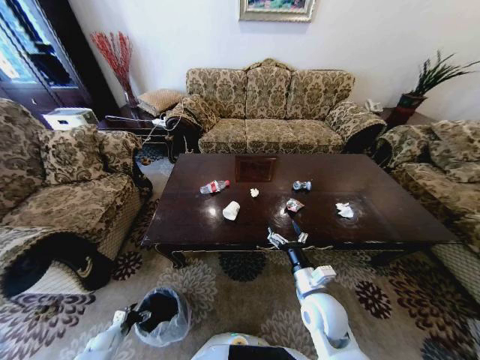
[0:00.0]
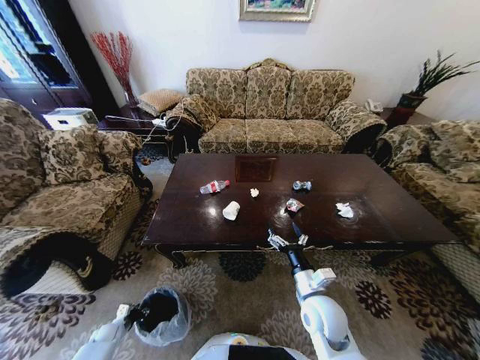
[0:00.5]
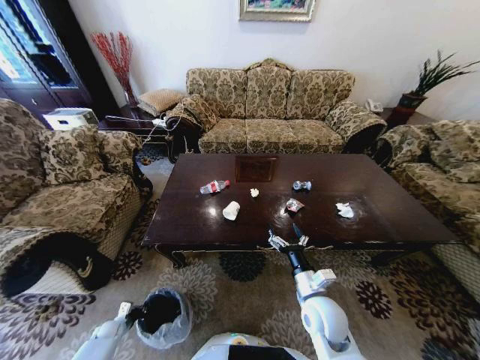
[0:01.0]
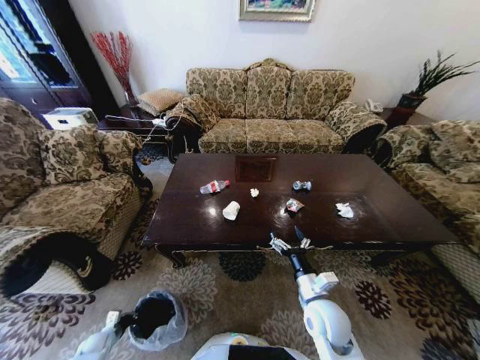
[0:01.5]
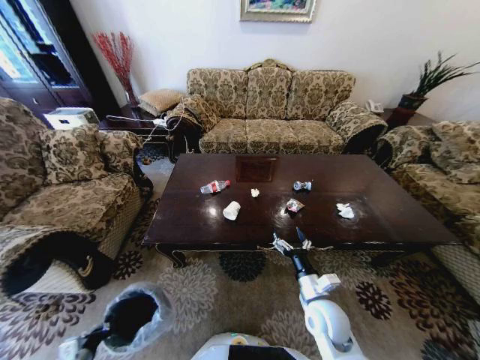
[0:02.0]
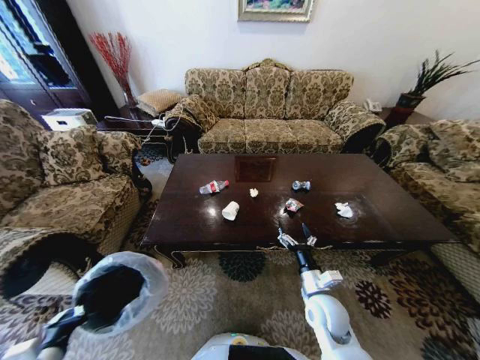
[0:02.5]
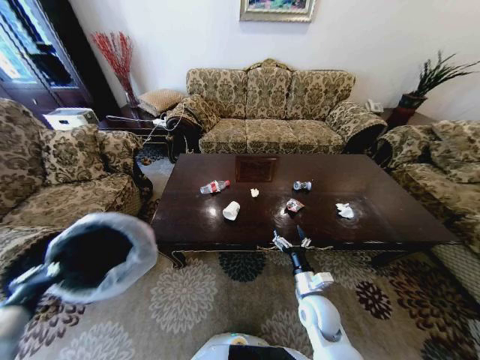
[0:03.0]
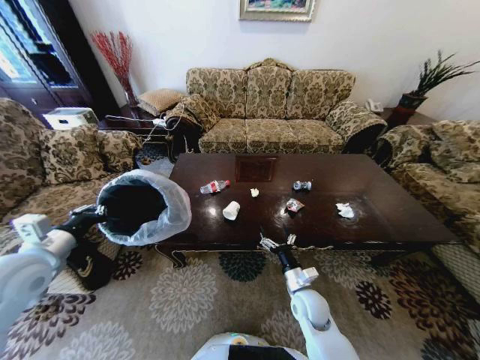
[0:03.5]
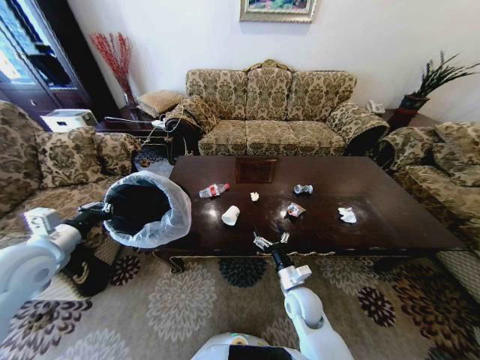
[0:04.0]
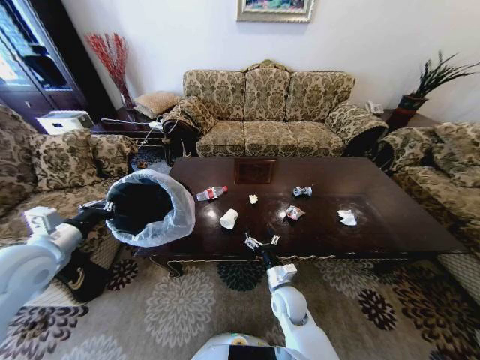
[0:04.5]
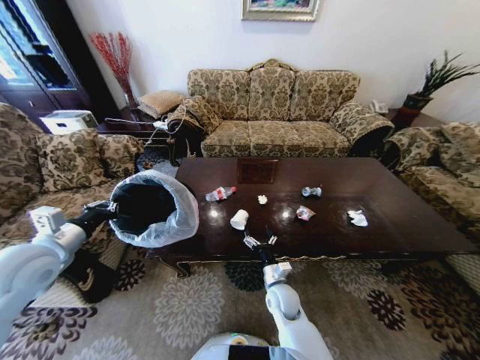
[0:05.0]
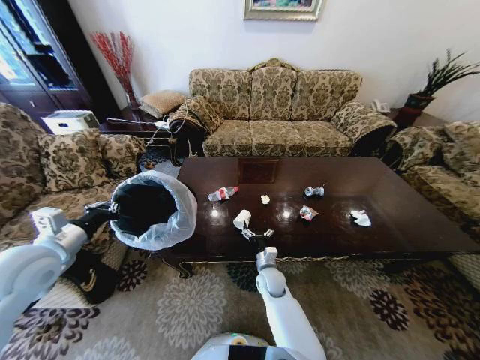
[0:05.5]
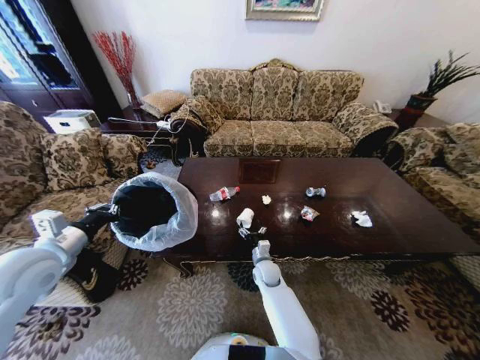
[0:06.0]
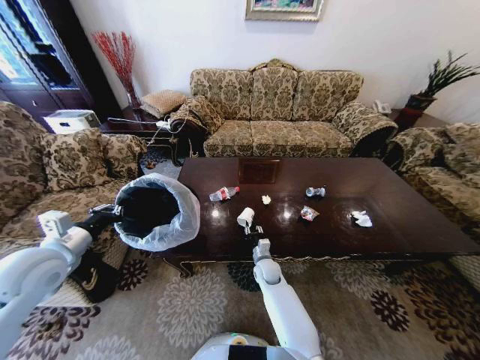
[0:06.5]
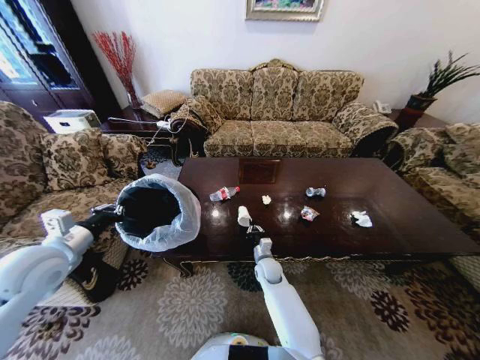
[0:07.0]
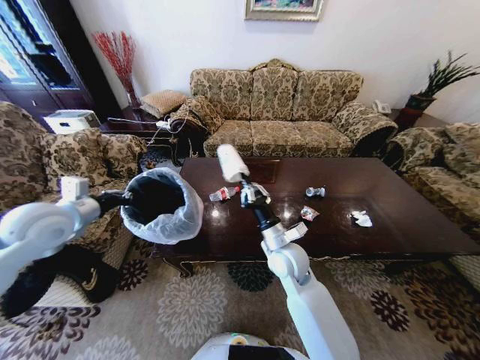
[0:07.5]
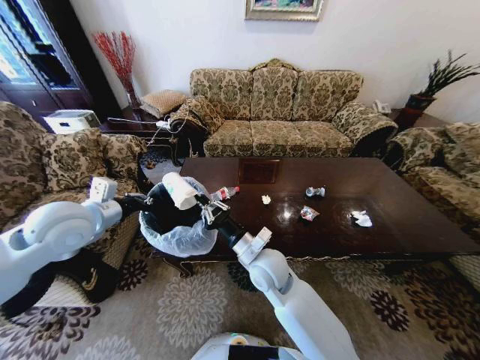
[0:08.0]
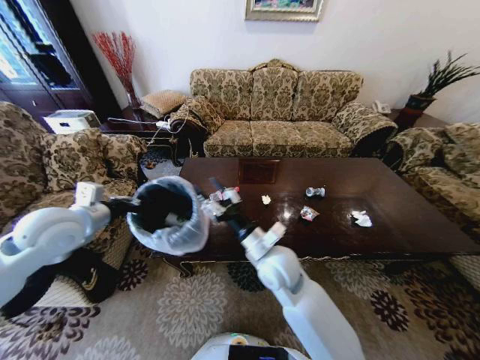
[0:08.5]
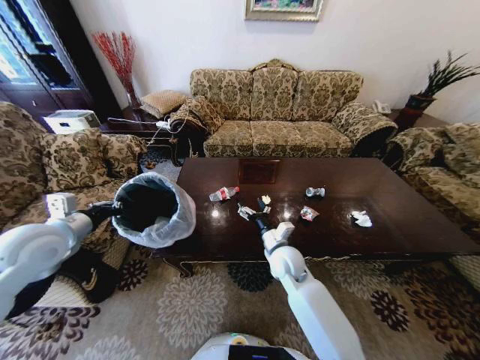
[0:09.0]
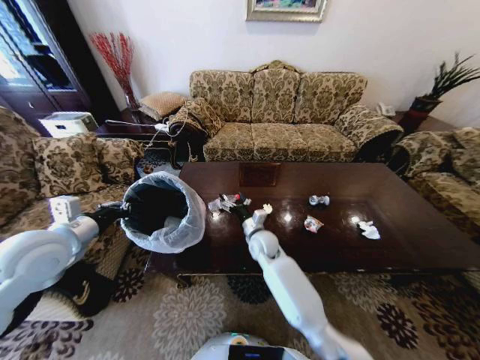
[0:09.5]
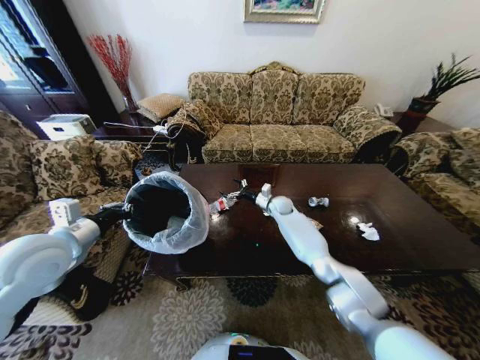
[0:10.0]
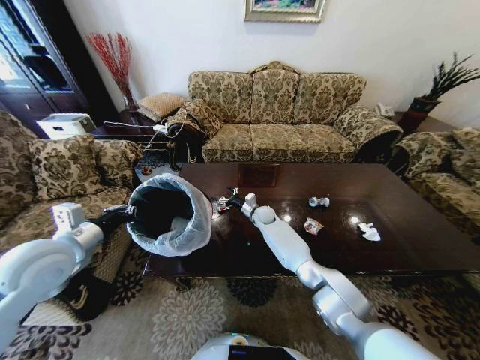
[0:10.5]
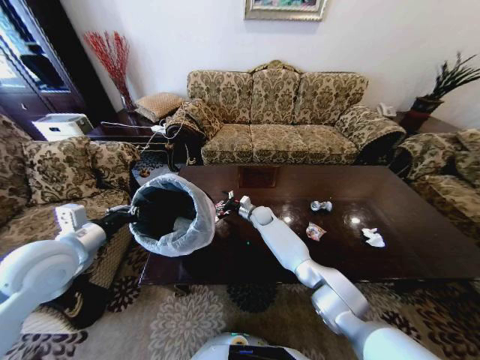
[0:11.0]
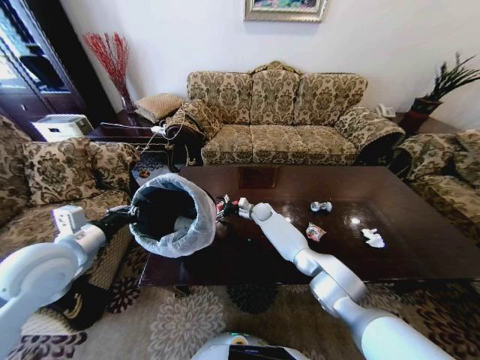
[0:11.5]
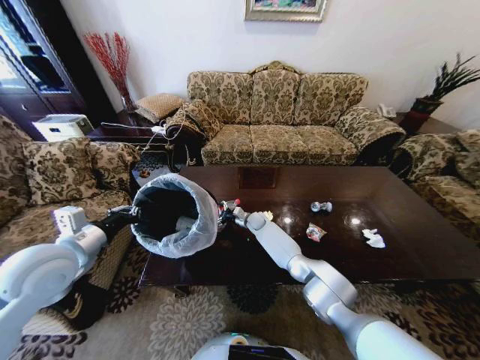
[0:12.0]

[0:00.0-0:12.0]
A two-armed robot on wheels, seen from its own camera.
Task of the whole recording: Move to the front of the table and place the trash on the table into the trash bin.
0:00.0 to 0:02.0: The left gripper moves upward and backward, about 15 cm, and closes up.
0:02.0 to 0:04.0: The right gripper ends up about 5 cm from where it was; the left gripper travels upward and forward by some 40 cm.
0:04.0 to 0:06.0: The right gripper travels forward, to the left and downward by some 15 cm.
0:06.0 to 0:08.0: The right gripper moves upward, about 20 cm, and closes its fingers; the left gripper shifts about 10 cm to the right, forward and upward.
0:08.0 to 0:10.0: The right gripper heads forward, covering about 30 cm, and opens up. Meanwhile the left gripper shifts approximately 5 cm backward.
0:10.0 to 0:12.0: The right gripper travels downward and to the left by some 15 cm.

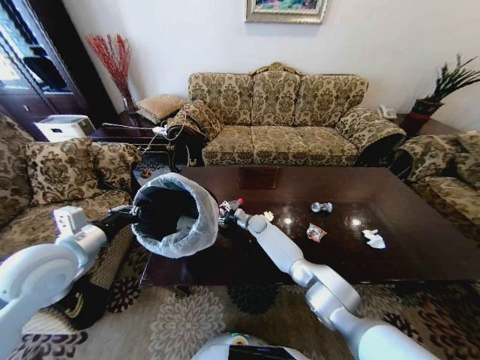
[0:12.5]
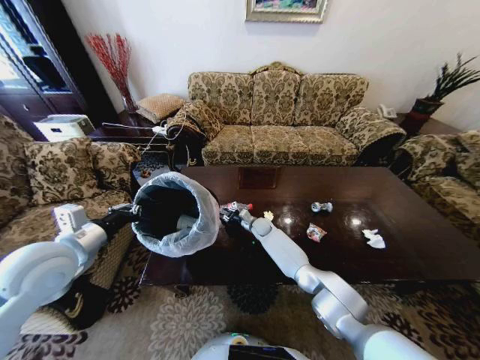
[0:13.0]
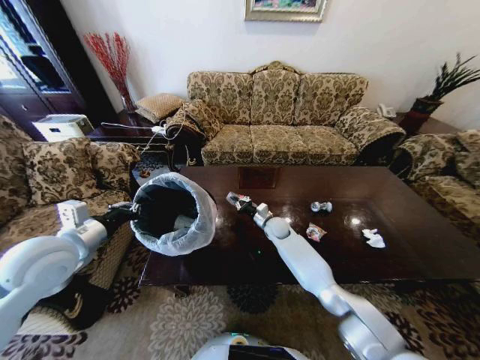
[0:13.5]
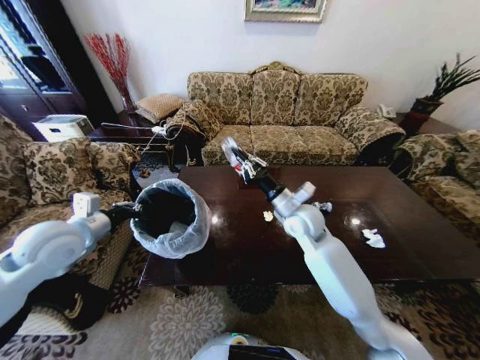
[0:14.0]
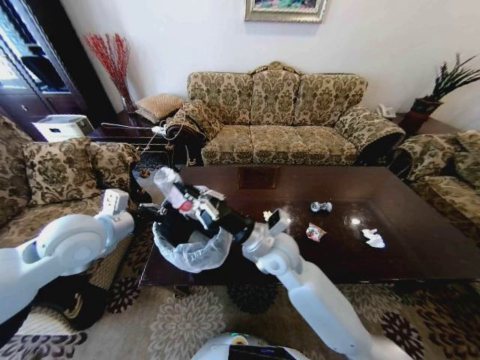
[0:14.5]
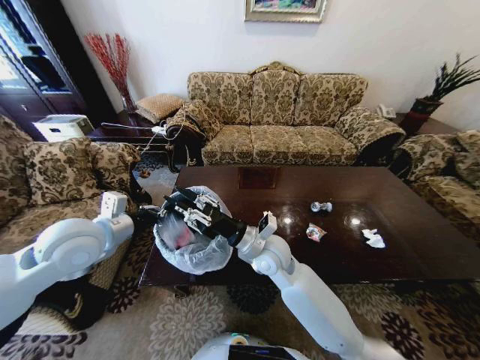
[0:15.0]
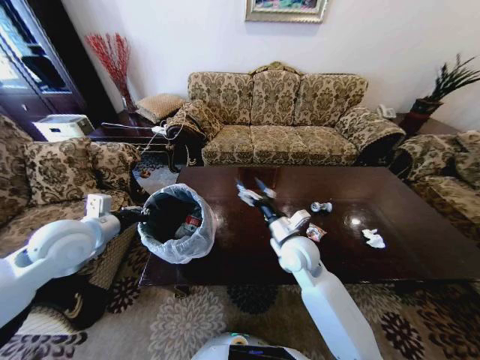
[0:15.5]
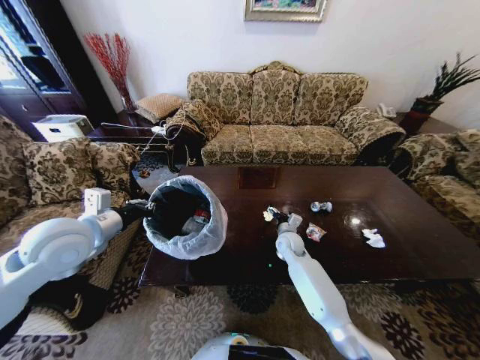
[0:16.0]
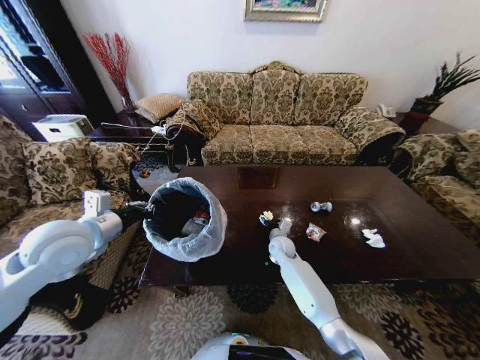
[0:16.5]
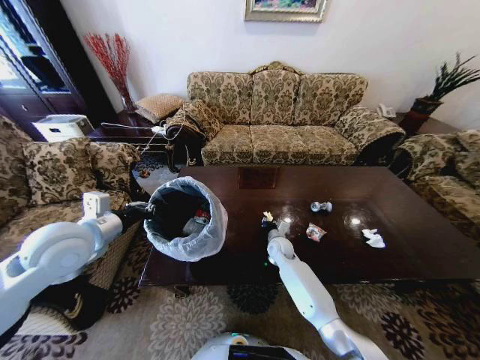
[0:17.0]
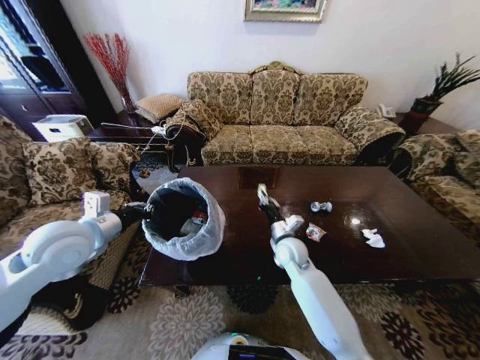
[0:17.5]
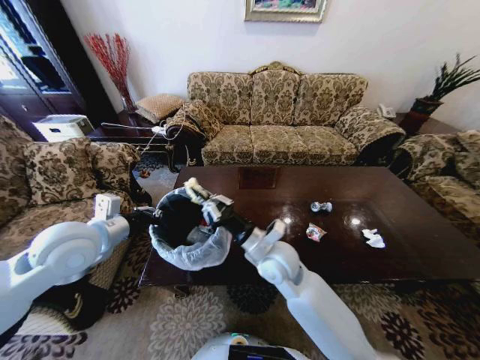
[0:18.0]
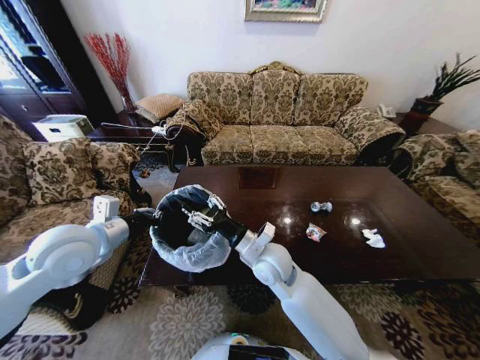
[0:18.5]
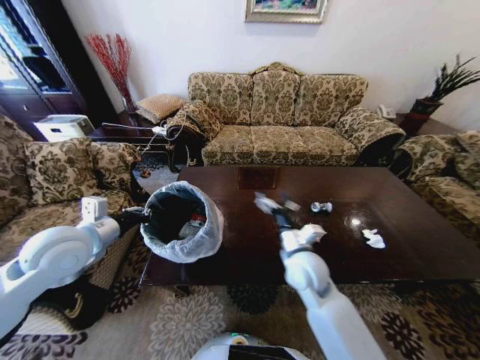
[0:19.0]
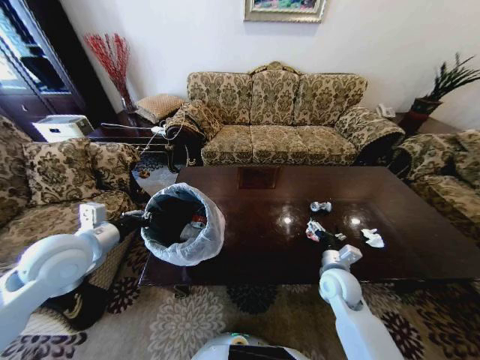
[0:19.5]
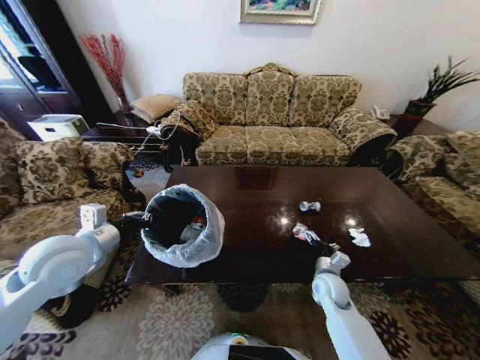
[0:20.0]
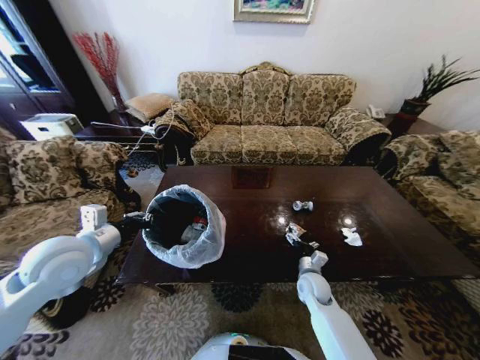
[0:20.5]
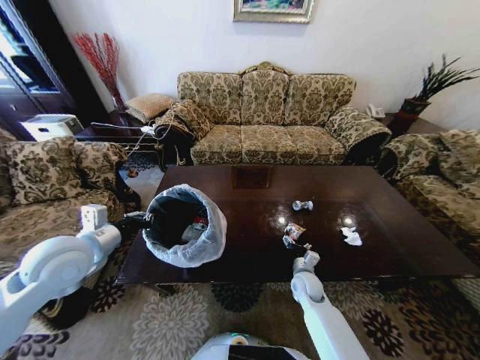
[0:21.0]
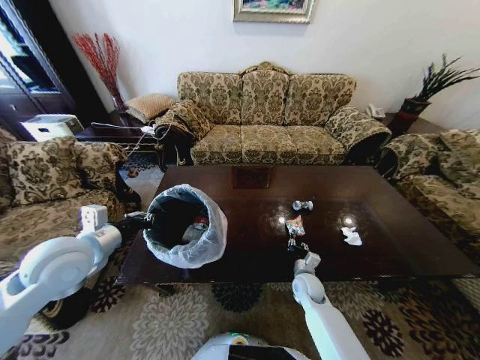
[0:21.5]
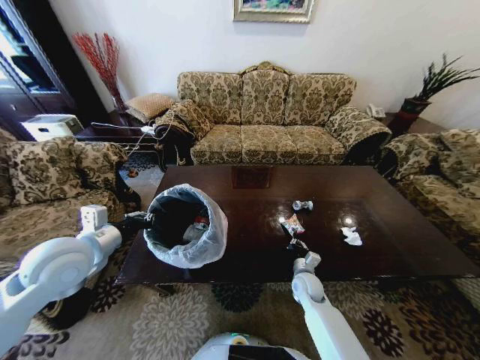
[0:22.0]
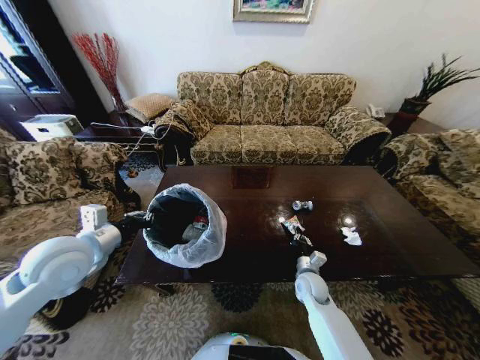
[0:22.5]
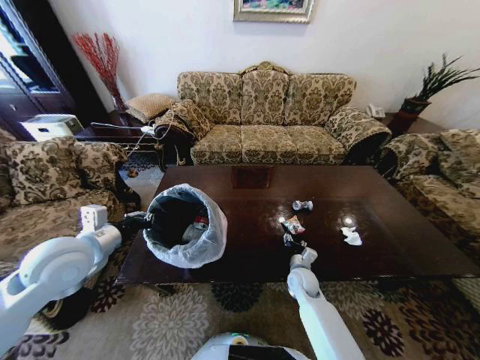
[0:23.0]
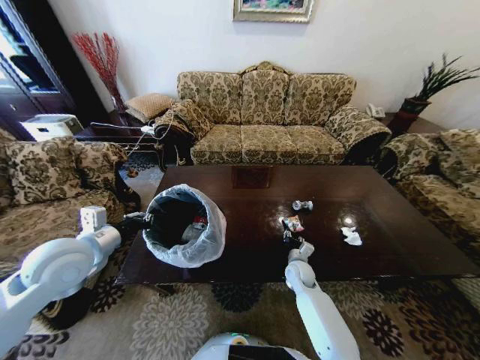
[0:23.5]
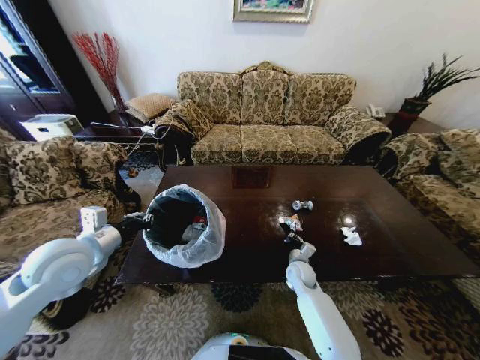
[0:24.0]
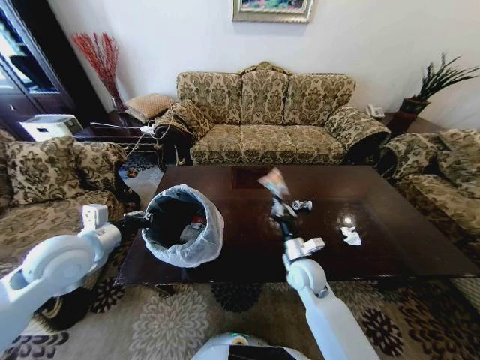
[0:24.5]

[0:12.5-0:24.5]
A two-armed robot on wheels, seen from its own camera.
Task of the whole recording: Move to the front of the table and place the trash on the table into the trash bin.
0:12.5 to 0:14.5: The right gripper heads backward and upward, covering roughly 35 cm, and closes, while the left gripper ends up approximately 5 cm from where it was.
0:14.5 to 0:16.5: The right gripper moves downward and forward, approximately 25 cm, and opens up.
0:16.5 to 0:18.5: The right gripper shifts roughly 25 cm upward, backward and to the left, and closes.
0:18.5 to 0:20.5: The right gripper heads downward and to the right, covering some 25 cm, and opens its fingers.
0:20.5 to 0:22.5: The right gripper closes its fingers.
0:22.5 to 0:24.5: The right gripper moves upward and to the left, roughly 15 cm, and opens and closes again.

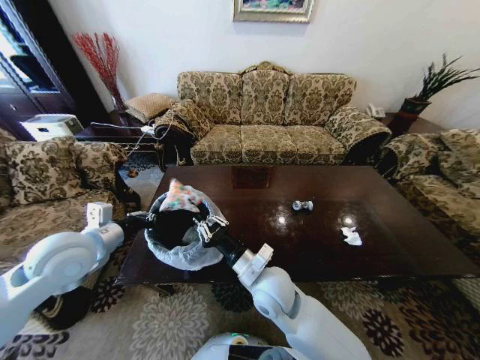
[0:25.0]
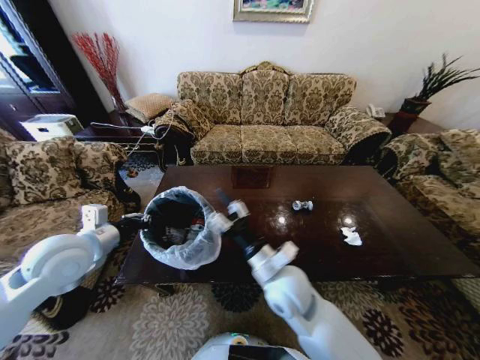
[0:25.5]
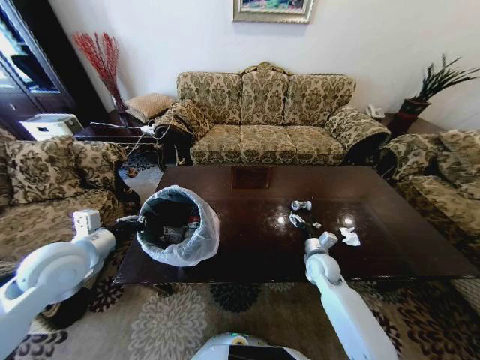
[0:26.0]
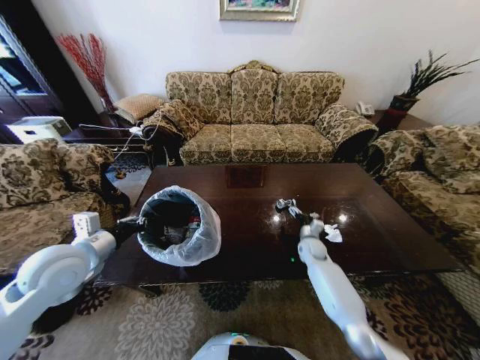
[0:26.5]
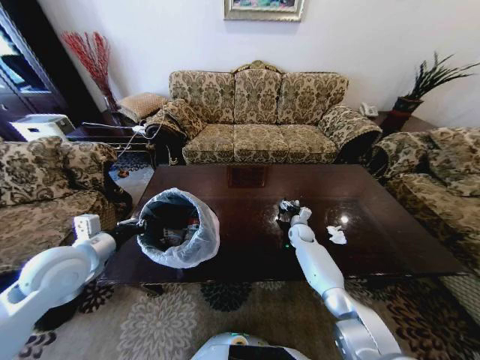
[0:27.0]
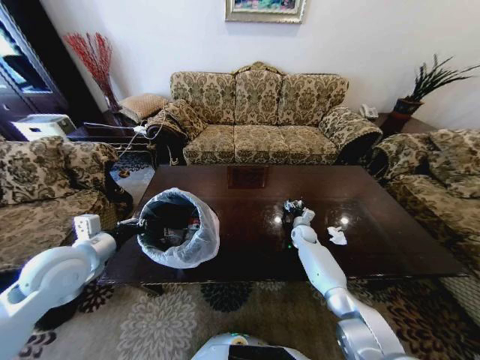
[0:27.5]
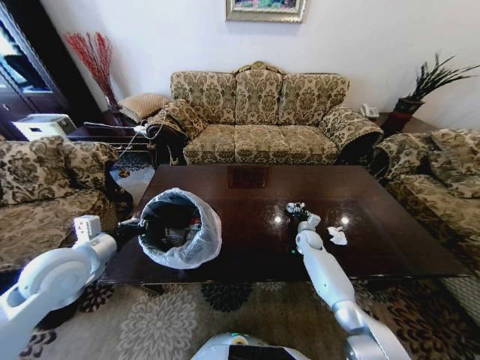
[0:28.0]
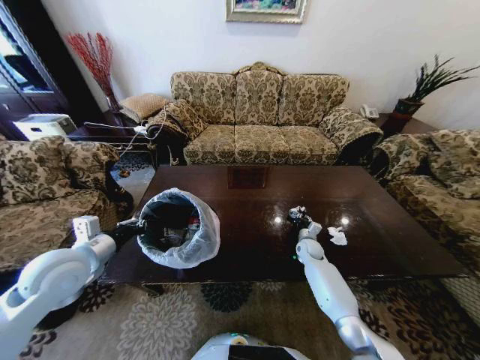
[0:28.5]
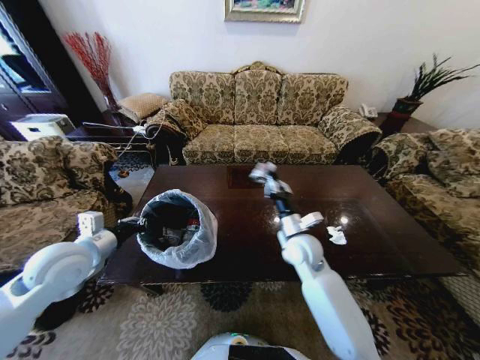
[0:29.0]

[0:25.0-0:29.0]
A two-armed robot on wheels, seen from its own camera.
Task of the whole recording: Move to the front of the table and place the trash on the table into the trash bin.
0:25.0 to 0:27.0: The right gripper moves forward, to the right and downward, roughly 40 cm, and opens up.
0:27.0 to 0:29.0: The right gripper moves upward, backward and to the left, roughly 25 cm, and closes its fingers.
